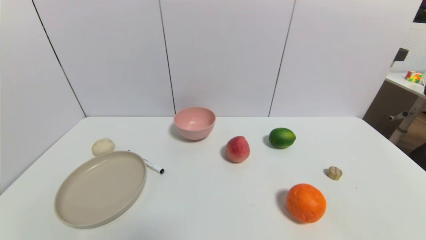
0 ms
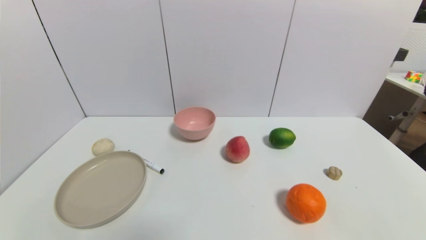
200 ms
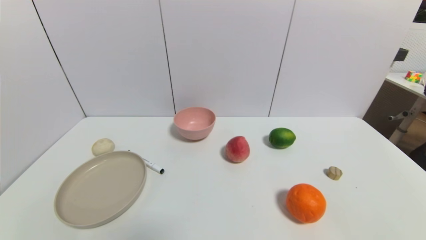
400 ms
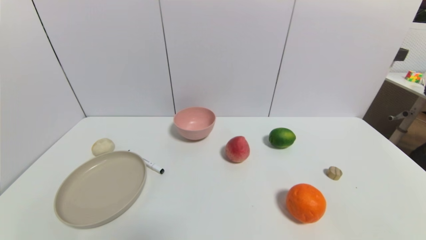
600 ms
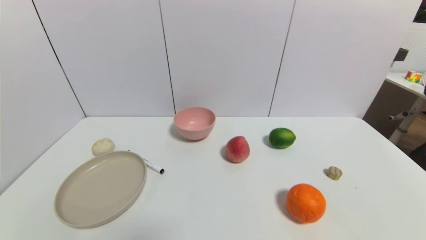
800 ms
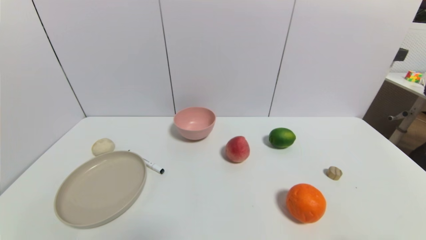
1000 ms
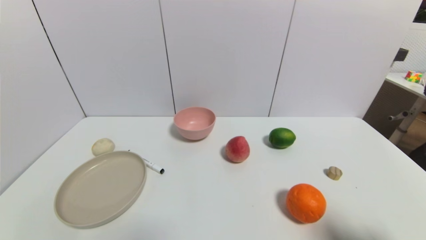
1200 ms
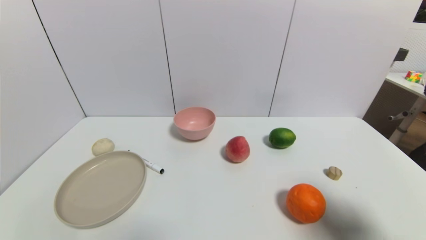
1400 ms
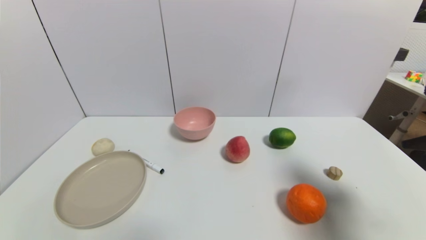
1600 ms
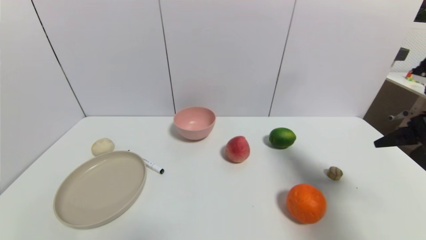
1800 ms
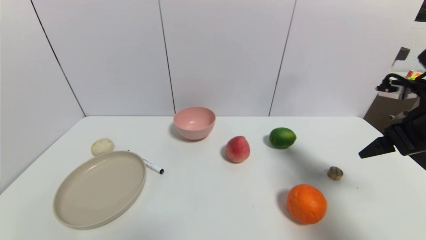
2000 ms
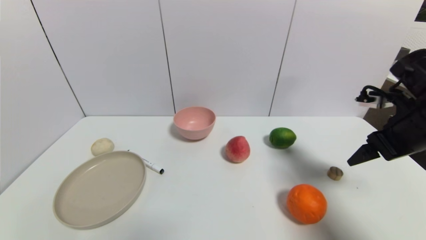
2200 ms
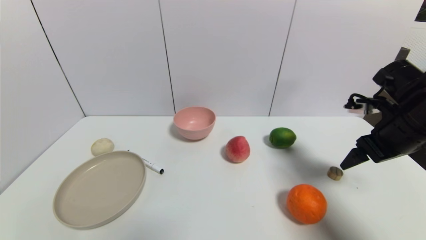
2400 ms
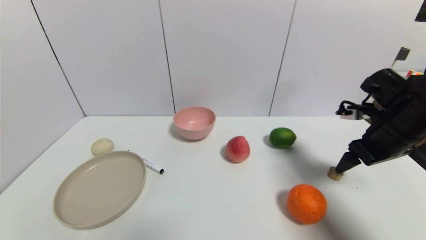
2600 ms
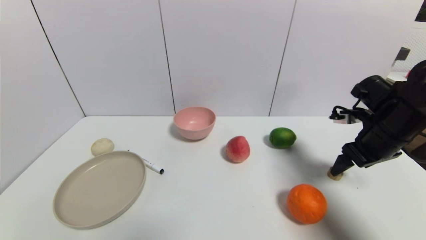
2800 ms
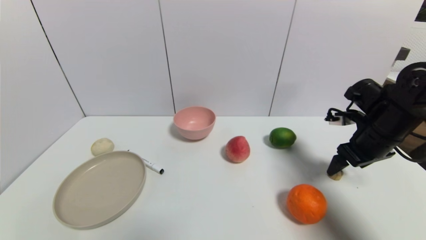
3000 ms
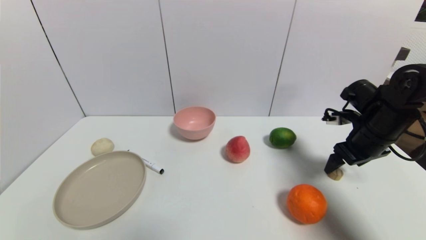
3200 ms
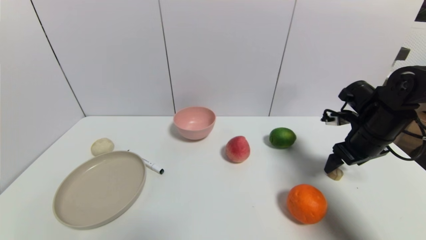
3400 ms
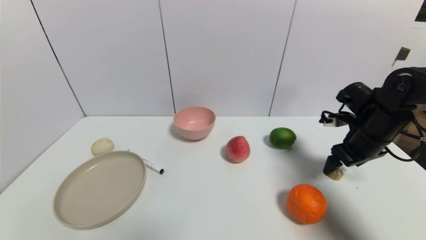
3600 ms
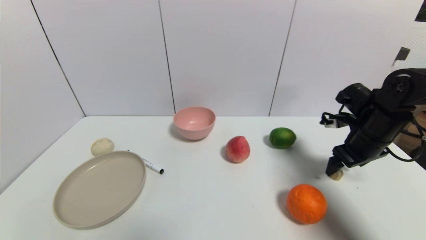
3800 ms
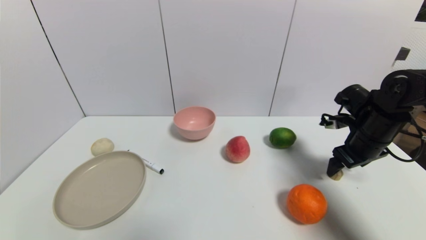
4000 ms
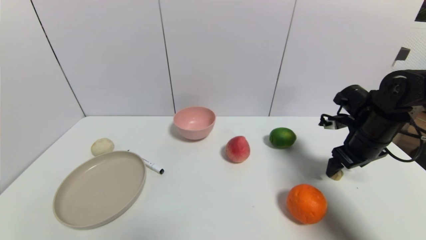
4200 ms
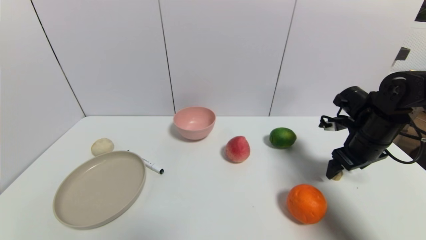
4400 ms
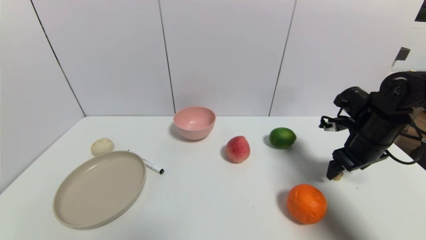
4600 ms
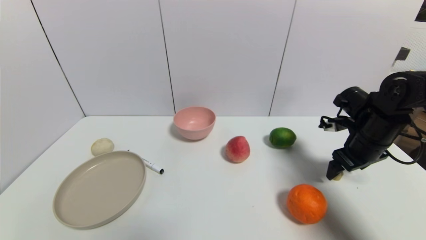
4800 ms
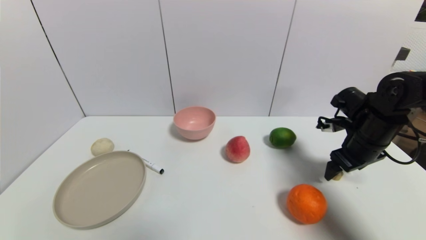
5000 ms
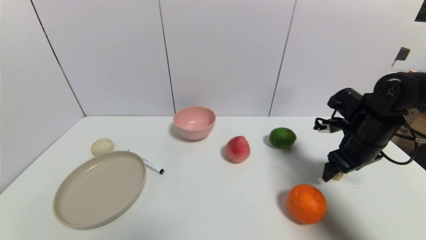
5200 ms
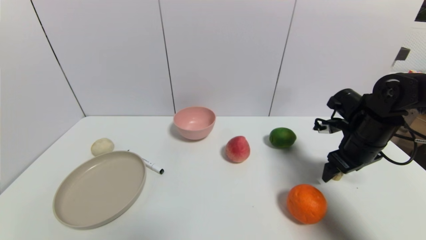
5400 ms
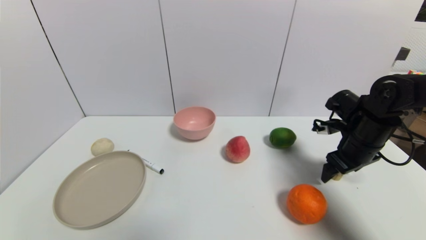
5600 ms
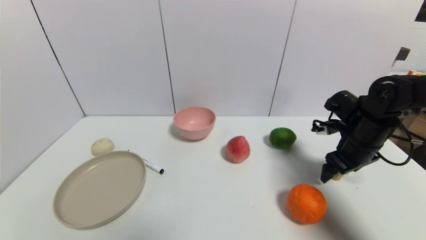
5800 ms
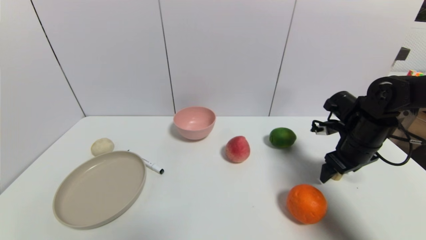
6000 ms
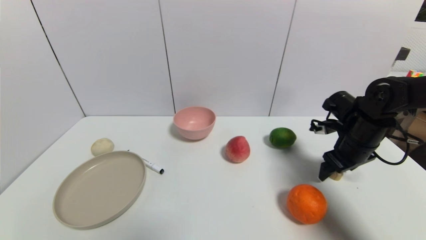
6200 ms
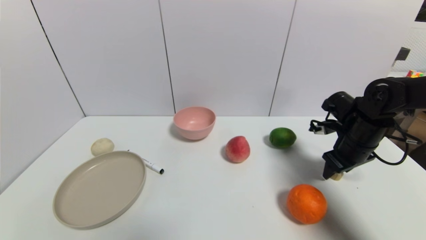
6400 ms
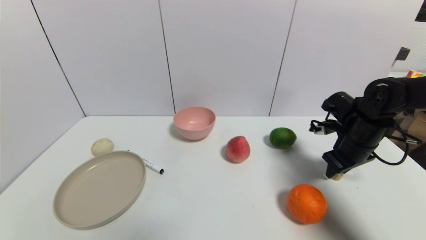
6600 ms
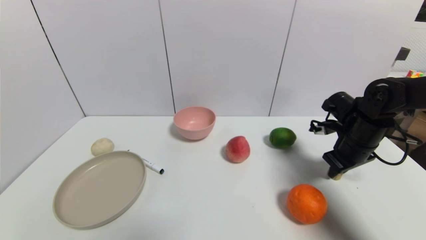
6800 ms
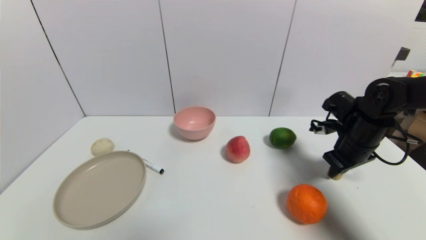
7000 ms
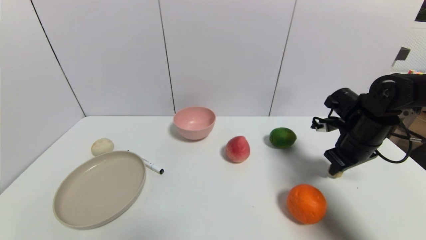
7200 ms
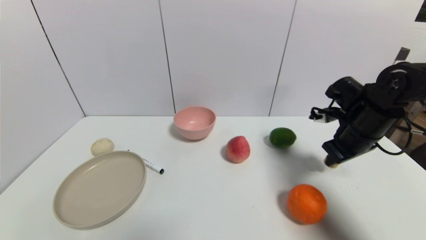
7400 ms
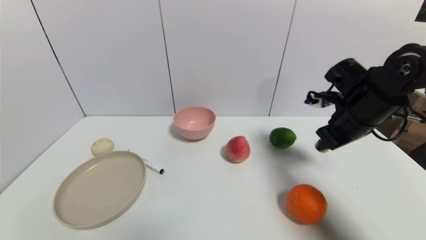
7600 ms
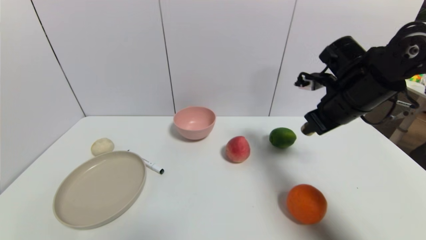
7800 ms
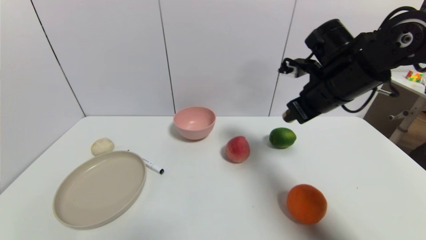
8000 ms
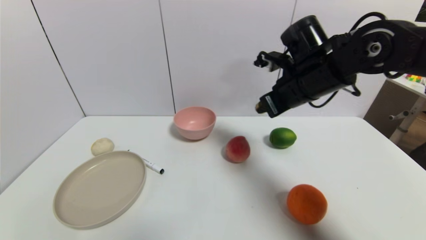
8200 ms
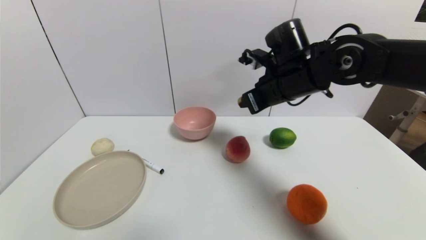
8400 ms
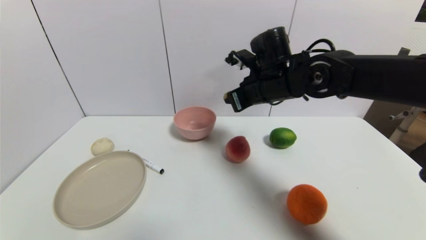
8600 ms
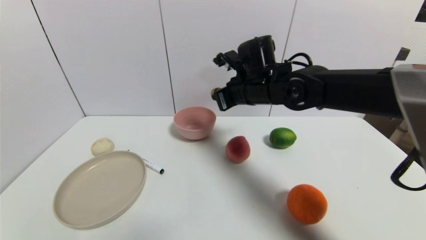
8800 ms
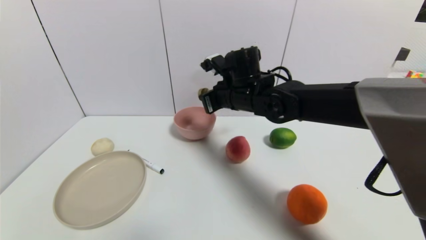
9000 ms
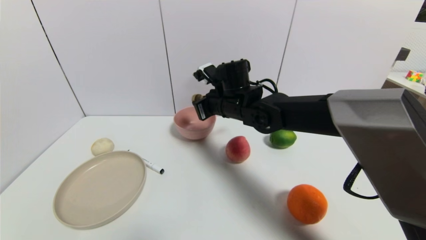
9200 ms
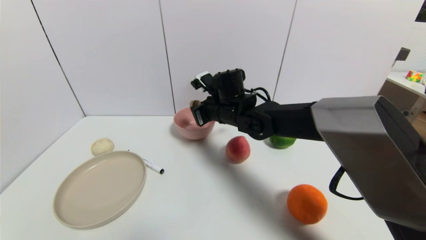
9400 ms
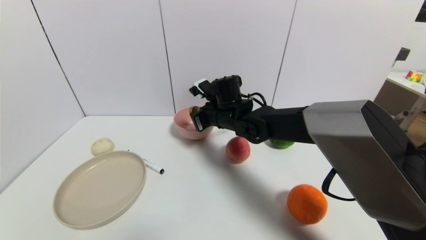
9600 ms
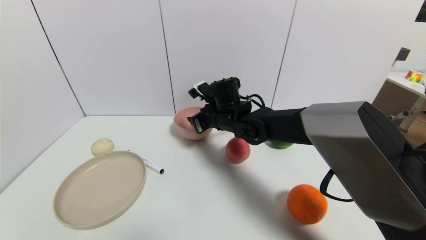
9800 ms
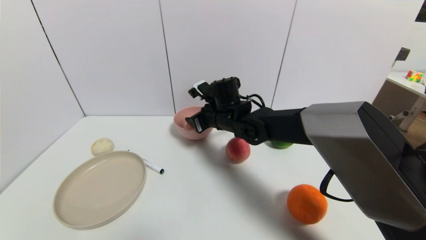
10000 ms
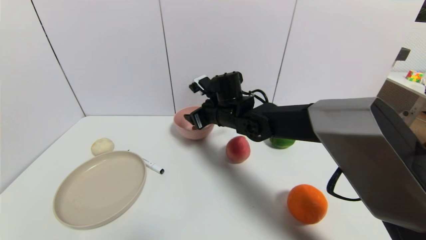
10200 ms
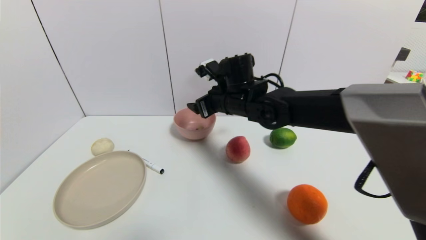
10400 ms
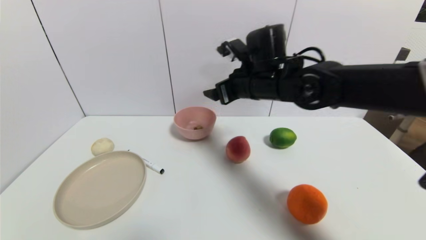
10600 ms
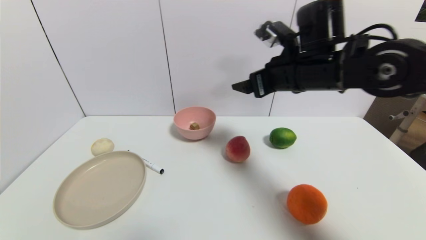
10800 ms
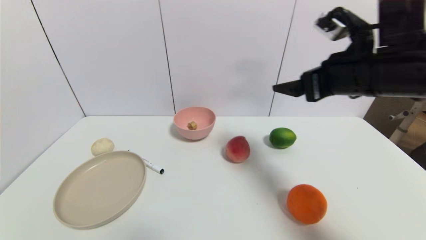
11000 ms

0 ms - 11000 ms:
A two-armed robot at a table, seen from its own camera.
Task of the whole recording: use a gripper to pick the target object and place on the pink bowl.
Step, 0 ms - 6800 ms: Grasp the round wooden block with the right gripper.
Step, 7000 ms - 9800 ms: Place the round wooden block on the pink bowl with the right gripper.
0 ms - 1600 ms: The right gripper goes about 30 cm upward and forward.
1600 ms - 3200 ms: The right gripper is displaced forward and downward by about 20 cm.
3200 ms - 6200 ms: There are only small adjustments of the grippers.
6200 ms - 7800 ms: The right gripper is displaced upward and to the left by approximately 10 cm, and closes its fingers.
7800 ms - 9400 ms: The right gripper heads to the left, covering approximately 20 cm.
9400 ms - 11000 ms: The right gripper heads to the right, backward and upward, covering approximately 30 cm, and opens its fingers.

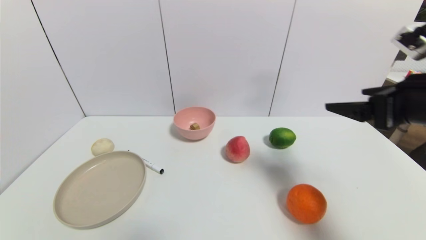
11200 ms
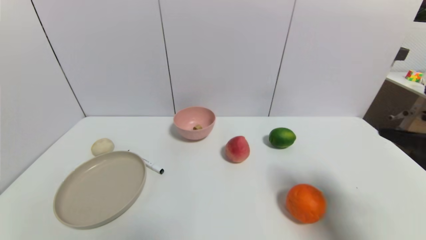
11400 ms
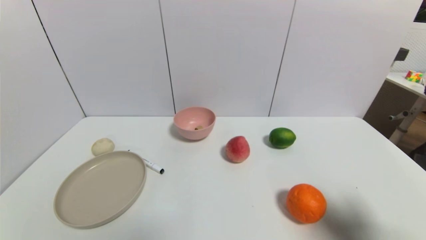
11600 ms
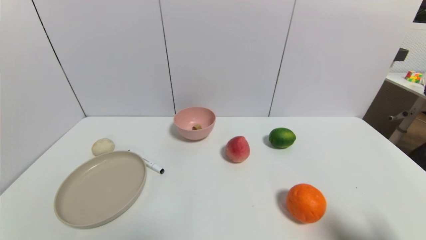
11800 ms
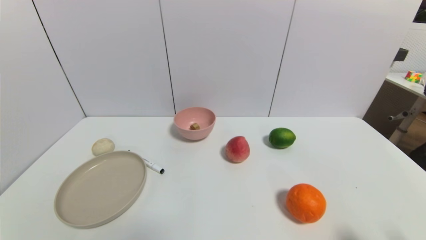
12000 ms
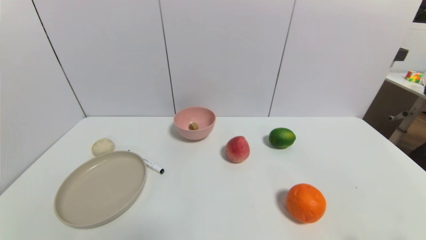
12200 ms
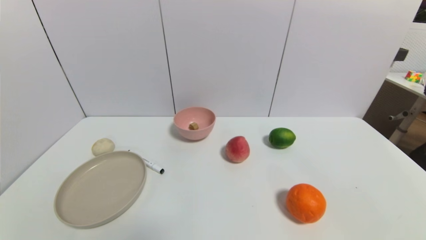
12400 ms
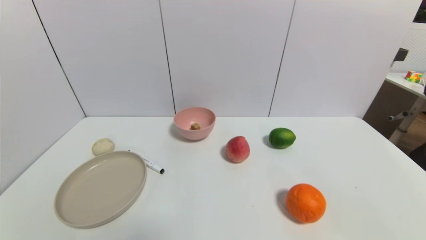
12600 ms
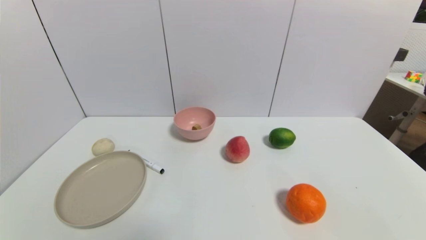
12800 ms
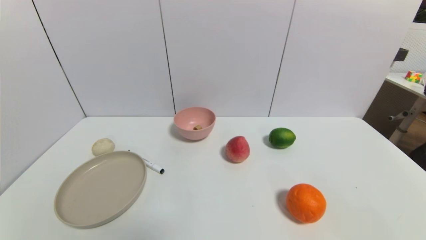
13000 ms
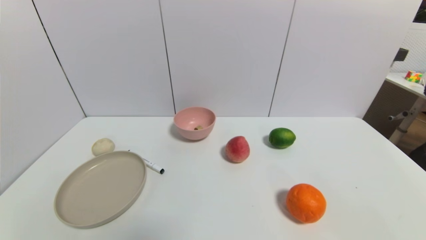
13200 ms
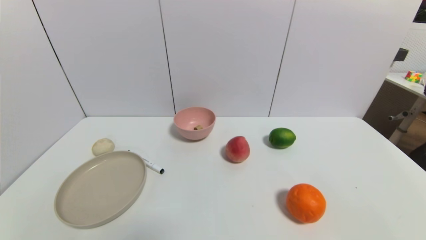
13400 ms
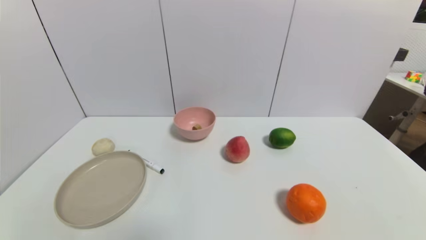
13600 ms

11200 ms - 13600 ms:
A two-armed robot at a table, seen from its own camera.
Task of the whole recording: use a gripper to pick the target object and place on the pink bowl.
11200 ms - 12400 ms: The right gripper heads backward and downward, covering about 25 cm.

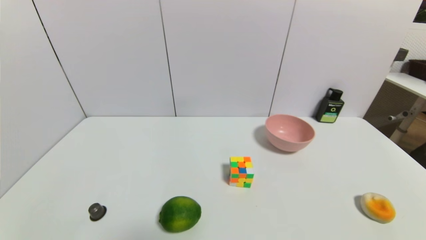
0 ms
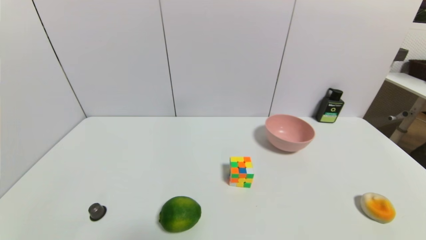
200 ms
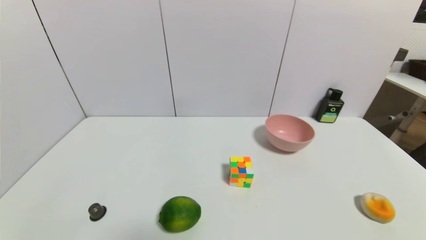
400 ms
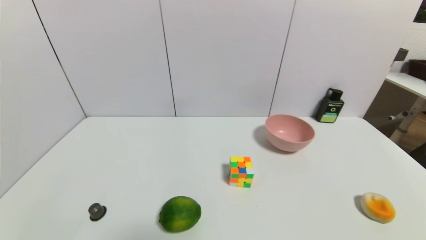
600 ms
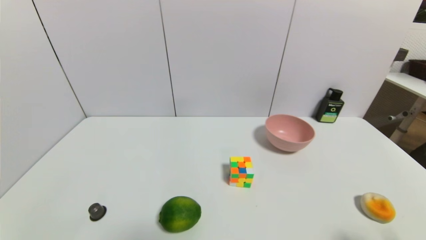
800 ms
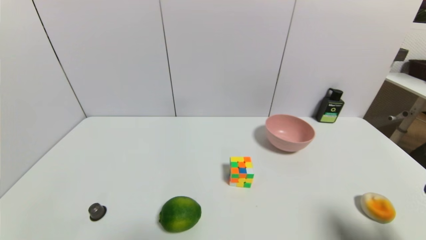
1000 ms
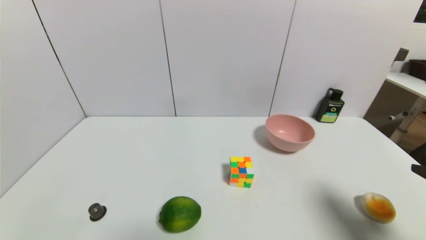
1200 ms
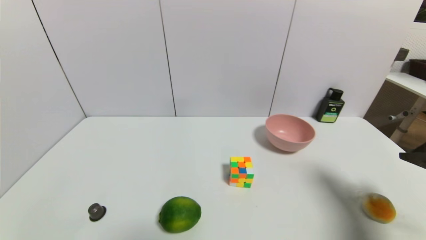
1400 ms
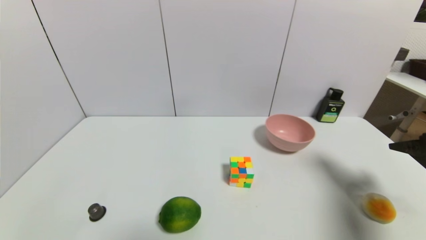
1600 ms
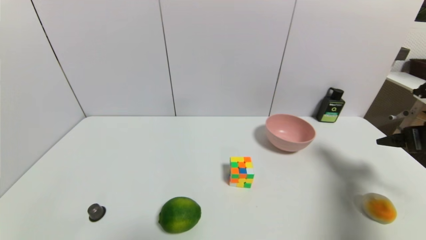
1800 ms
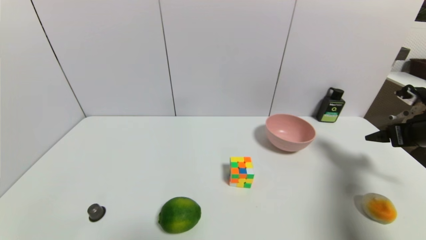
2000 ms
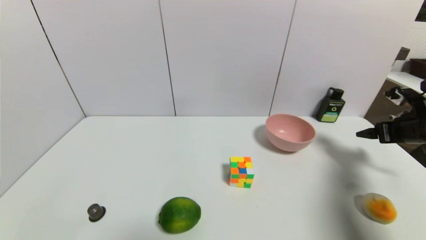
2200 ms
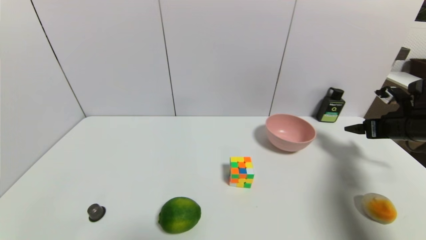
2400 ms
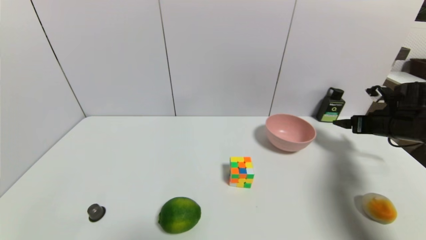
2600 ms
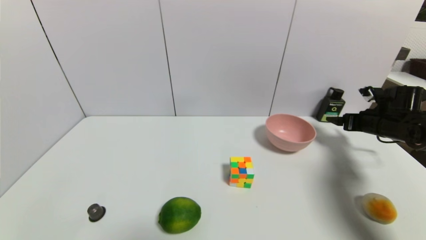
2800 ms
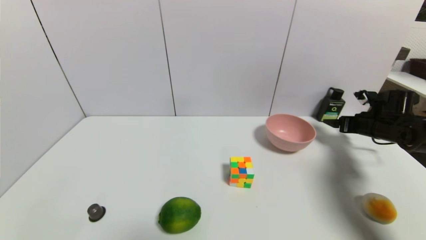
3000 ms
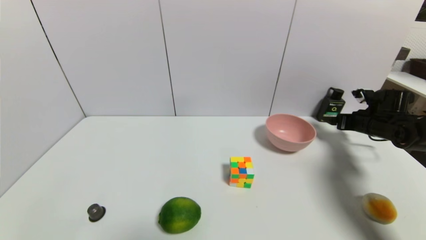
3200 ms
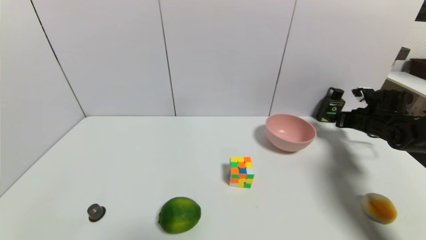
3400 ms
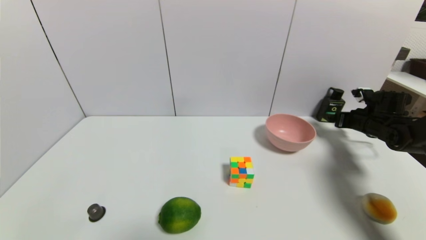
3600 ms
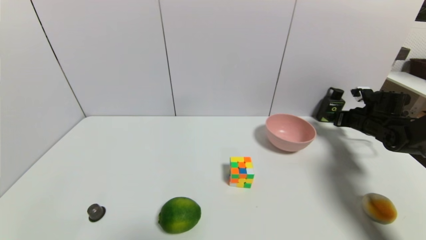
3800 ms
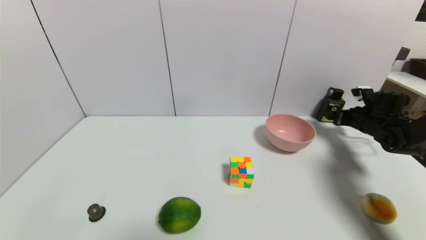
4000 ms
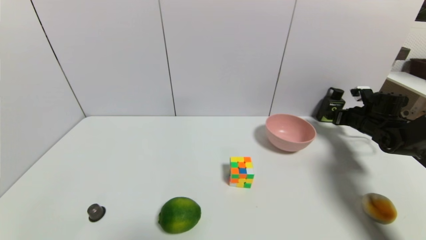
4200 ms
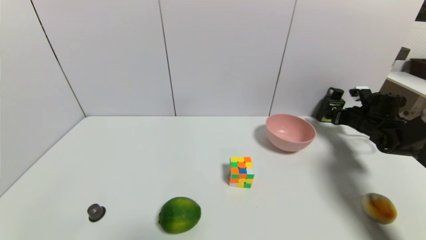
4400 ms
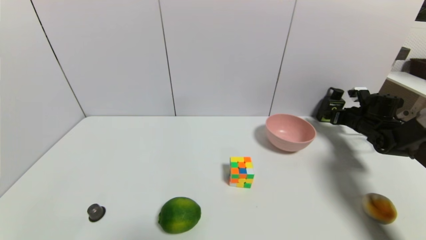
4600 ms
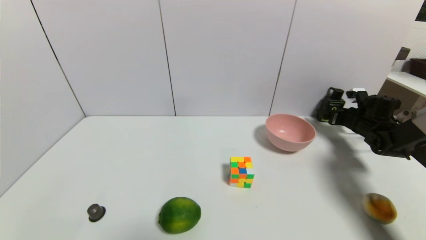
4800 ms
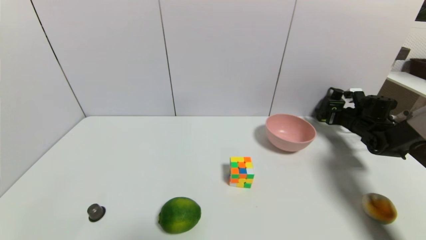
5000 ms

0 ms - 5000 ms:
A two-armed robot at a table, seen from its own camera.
Task of the whole recording: use a gripper to pick the target object and place on the pink bowl.
0 ms - 1600 ms: The right gripper is displaced forward and upward by roughly 25 cm.
1600 ms - 3400 ms: The right gripper travels forward and downward by roughly 25 cm.
3400 ms - 5000 ms: The right gripper changes place by some 5 cm.
